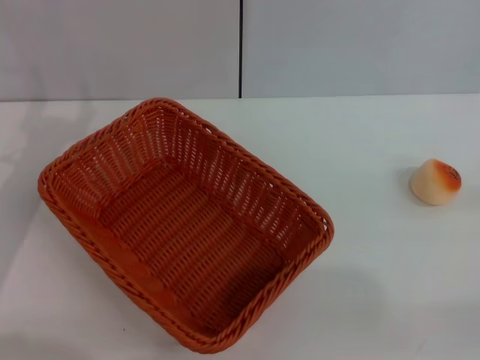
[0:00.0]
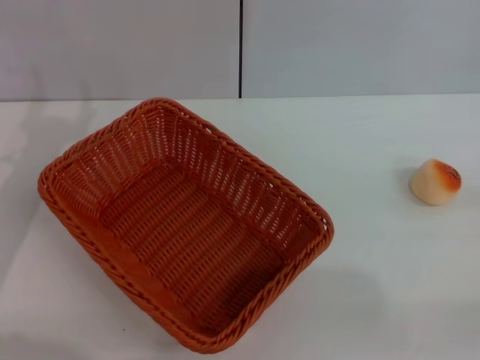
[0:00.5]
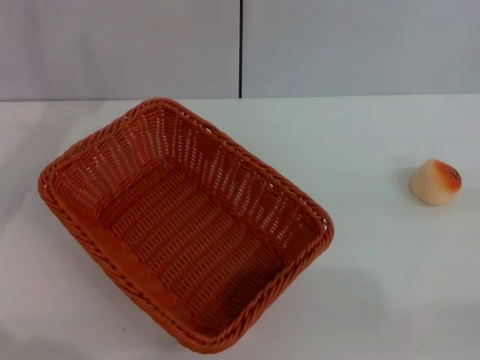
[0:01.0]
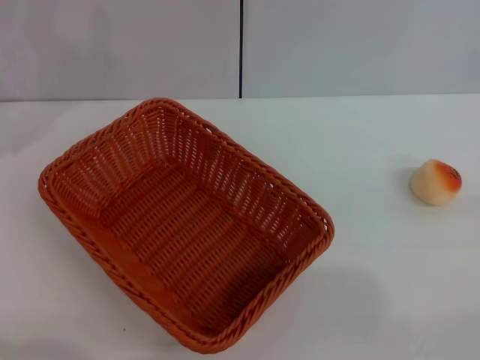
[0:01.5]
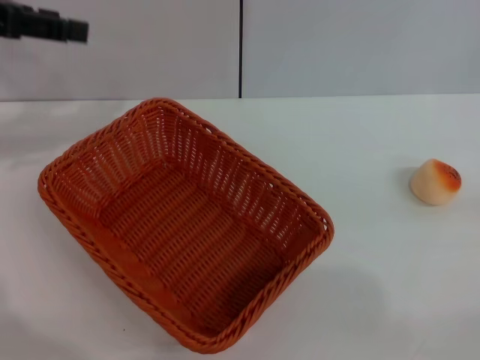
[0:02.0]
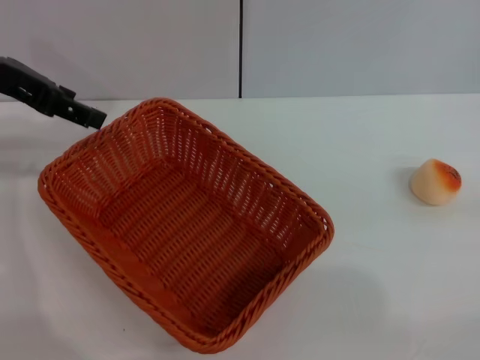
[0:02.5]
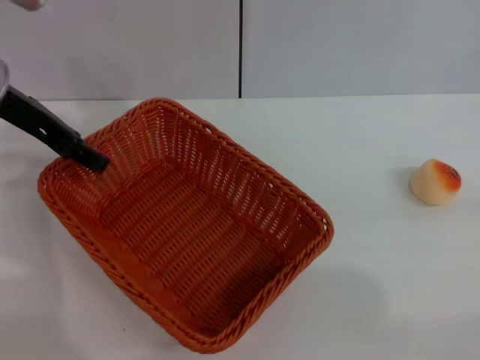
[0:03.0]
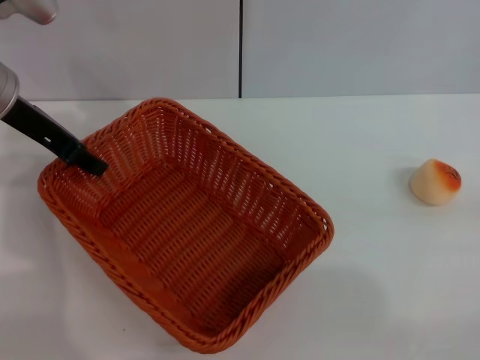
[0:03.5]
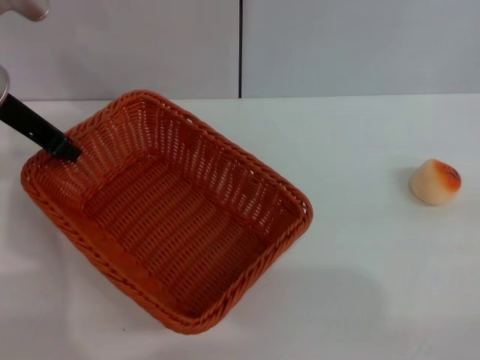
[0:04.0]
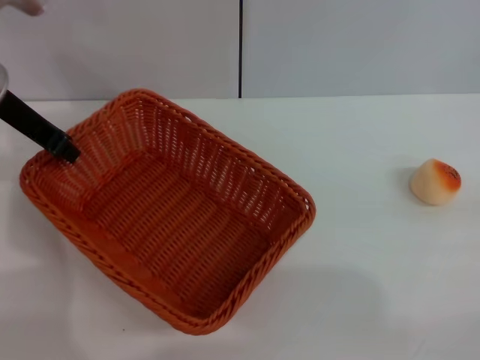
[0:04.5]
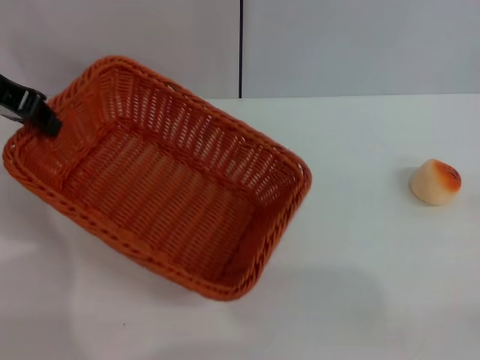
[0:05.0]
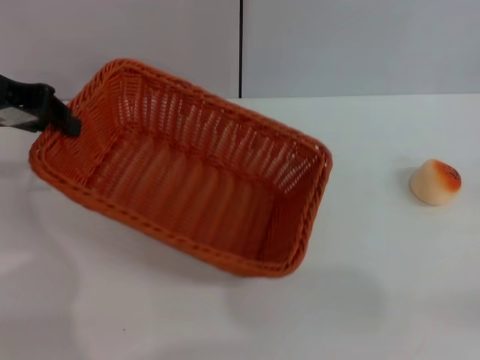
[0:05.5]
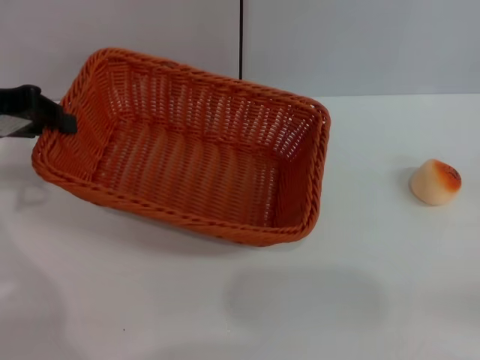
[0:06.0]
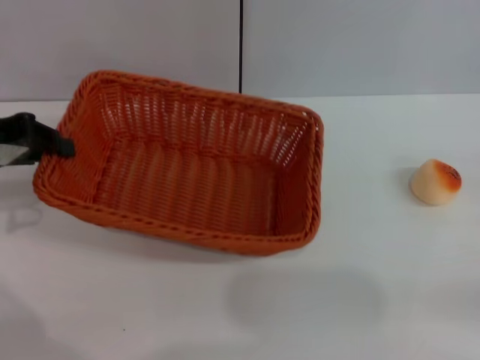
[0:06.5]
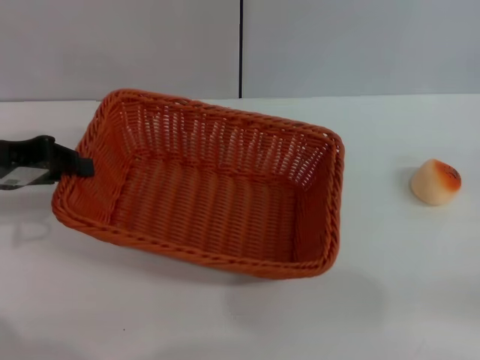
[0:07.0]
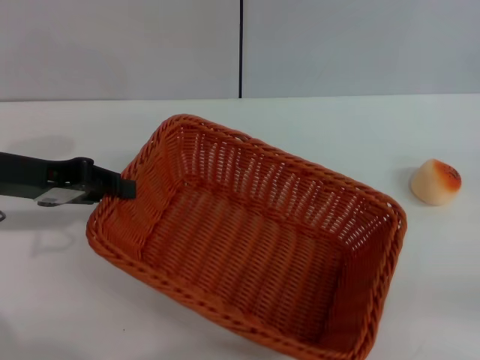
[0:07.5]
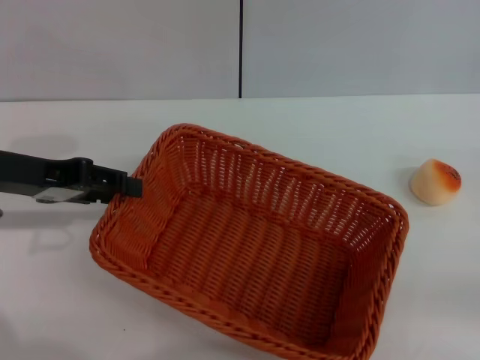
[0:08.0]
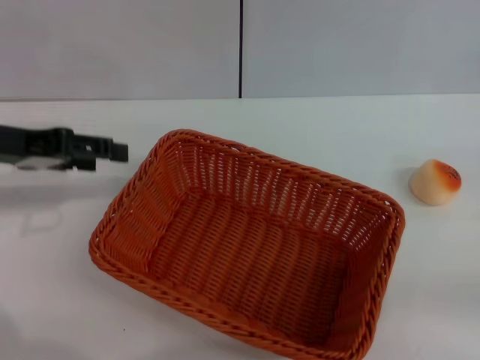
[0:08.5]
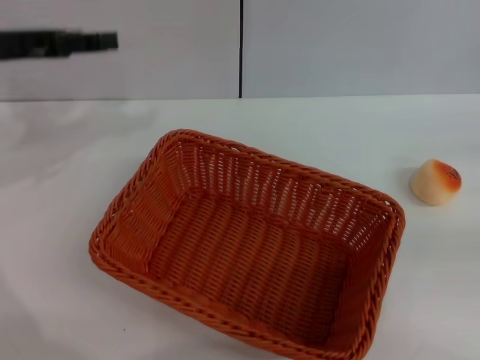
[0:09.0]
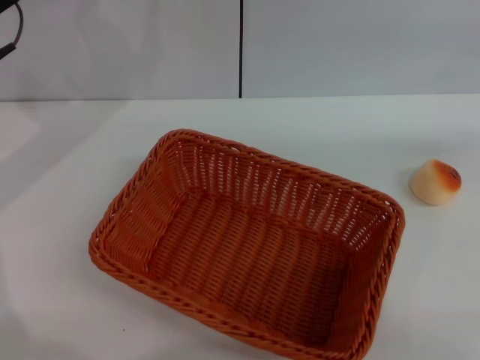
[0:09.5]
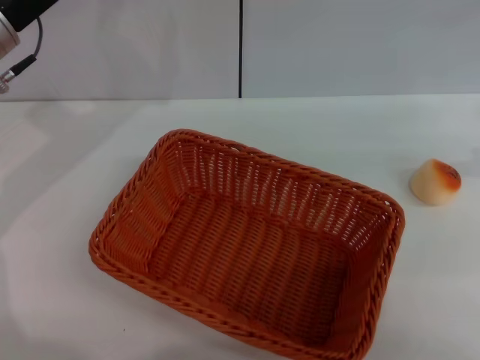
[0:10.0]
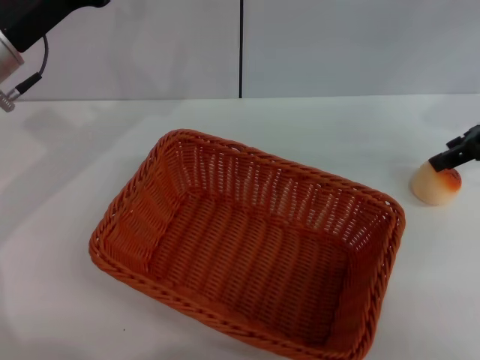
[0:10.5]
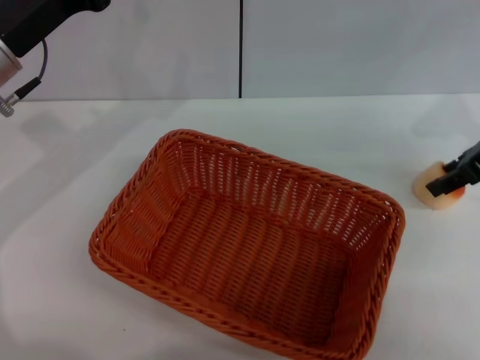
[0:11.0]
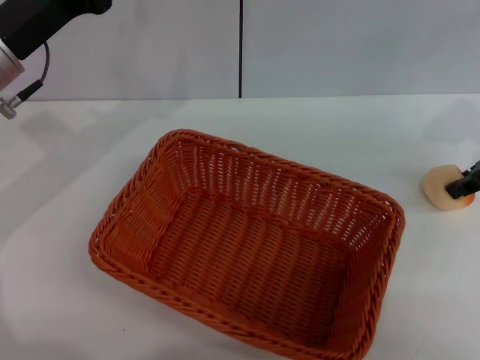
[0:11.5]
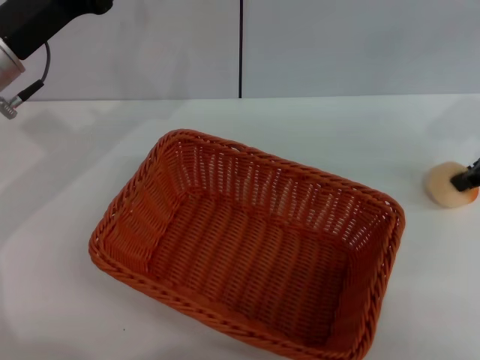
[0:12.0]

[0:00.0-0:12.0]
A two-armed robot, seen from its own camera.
Step, 0:00.0 to 0:08.0: Move the basket to the center of view with the left gripper.
0:00.0 to 0:02.0: The left gripper is displaced upward and forward by approximately 20 cm.
0:02.0 to 0:04.0: The left gripper shifts some 10 cm downward and to the right, and closes.
0:04.0 to 0:06.0: The left gripper goes approximately 5 cm to the left.
0:06.0 to 0:08.0: The left gripper moves roughly 5 cm, and opens.
0:08.0 to 0:10.0: The left gripper is displaced forward by some 5 cm, while the right gripper shifts approximately 20 cm forward, upward and to the left.
0:10.0 to 0:12.0: The right gripper goes roughly 5 cm to the left, and closes up.

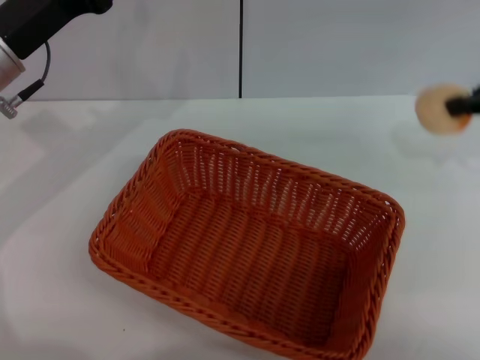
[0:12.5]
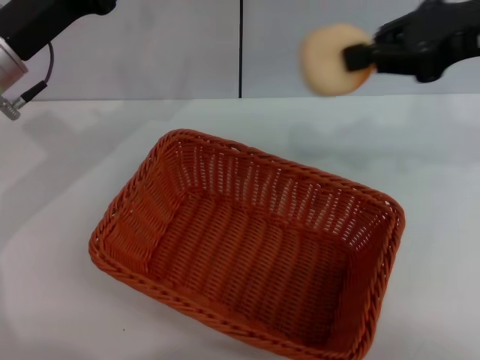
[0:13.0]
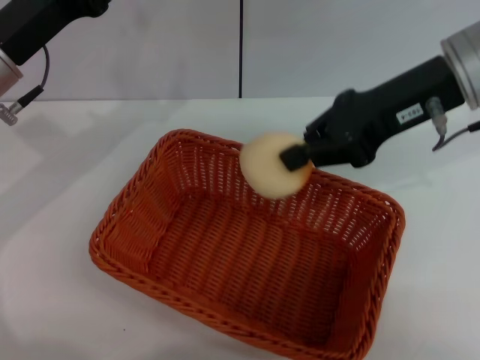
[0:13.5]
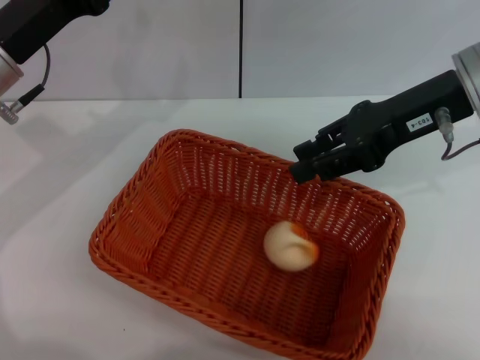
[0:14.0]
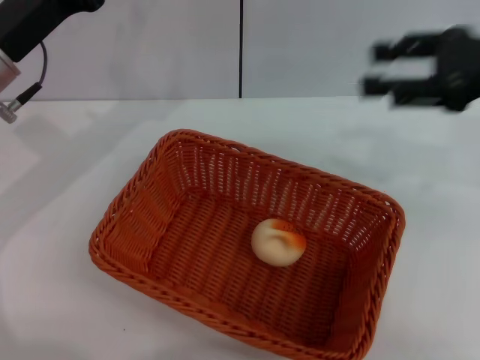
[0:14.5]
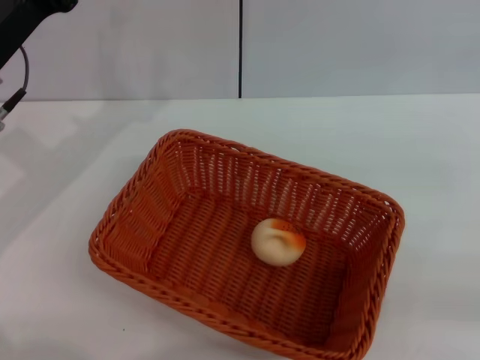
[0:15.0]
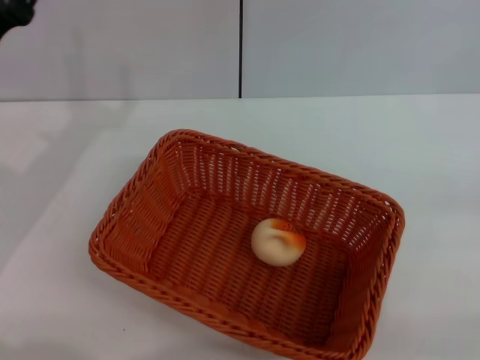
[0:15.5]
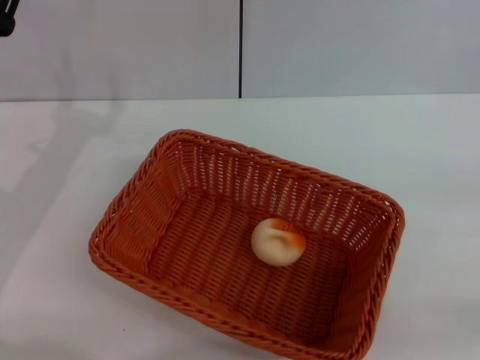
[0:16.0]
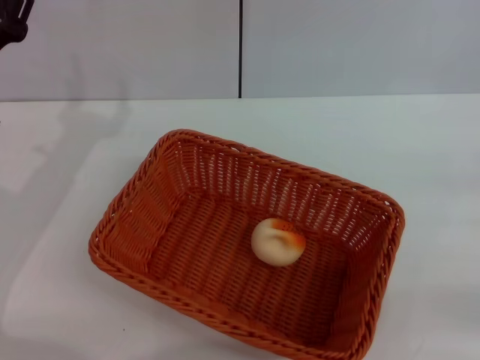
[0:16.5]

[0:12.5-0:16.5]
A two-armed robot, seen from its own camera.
Step, 0:13.0 to 0:14.0: Place the egg yolk pastry into the basket with the right gripper.
0:12.5 to 0:14.5: The right gripper moves approximately 15 cm to the left and comes back, and opens its fingers.
0:14.5 to 0:16.5: The right gripper heads to the right, downward and backward, covering roughly 20 cm. Meanwhile the left gripper moves approximately 5 cm.
